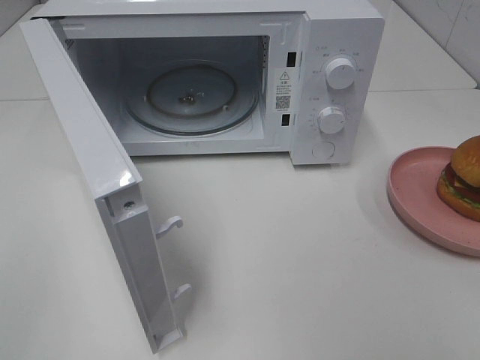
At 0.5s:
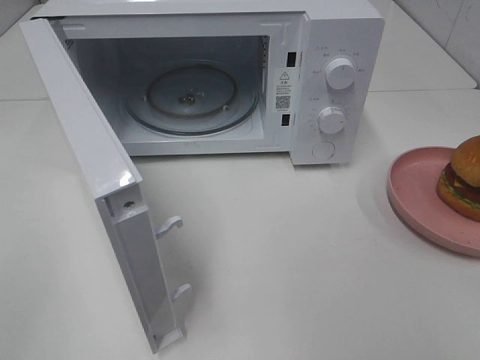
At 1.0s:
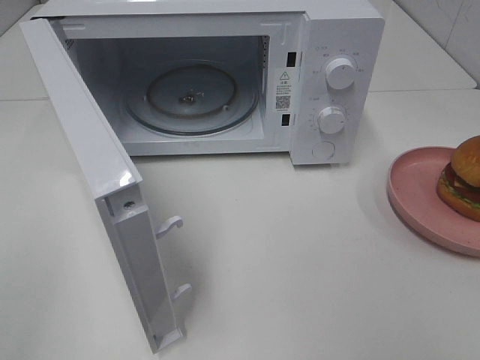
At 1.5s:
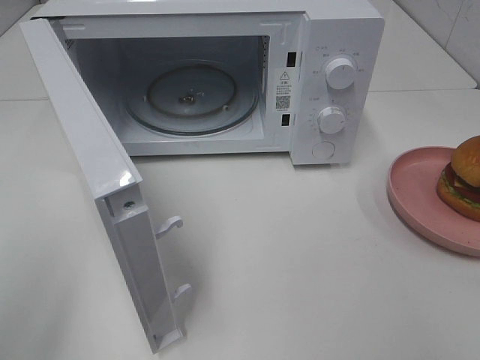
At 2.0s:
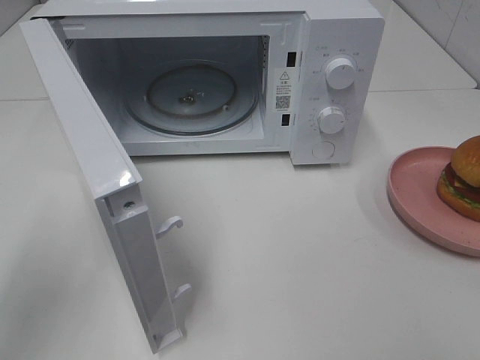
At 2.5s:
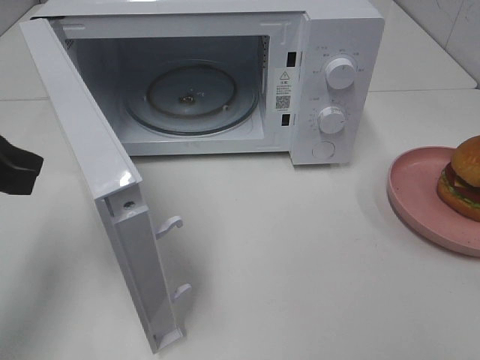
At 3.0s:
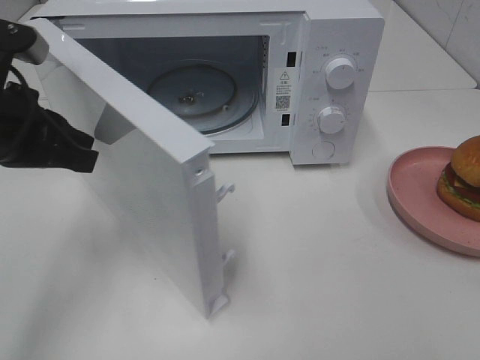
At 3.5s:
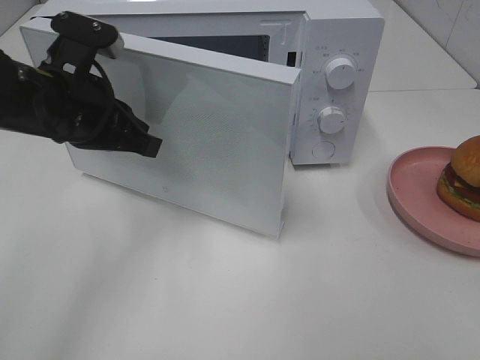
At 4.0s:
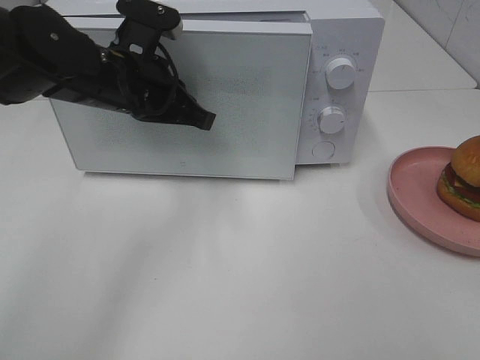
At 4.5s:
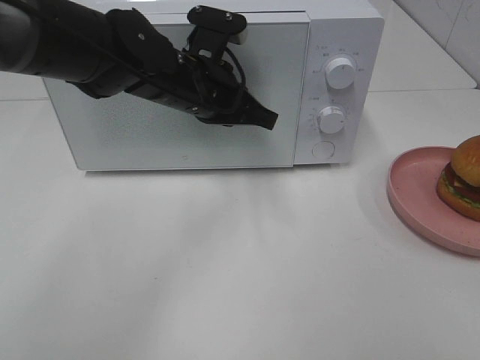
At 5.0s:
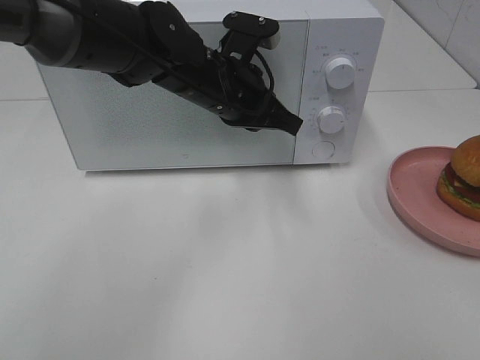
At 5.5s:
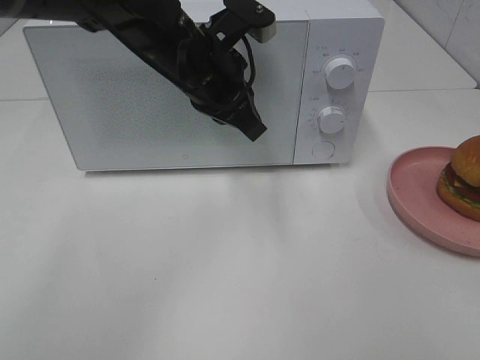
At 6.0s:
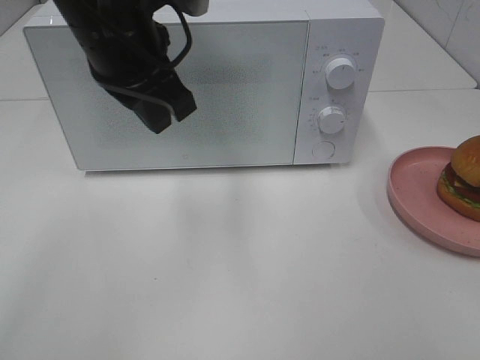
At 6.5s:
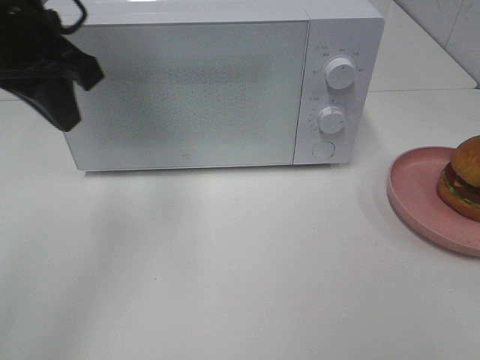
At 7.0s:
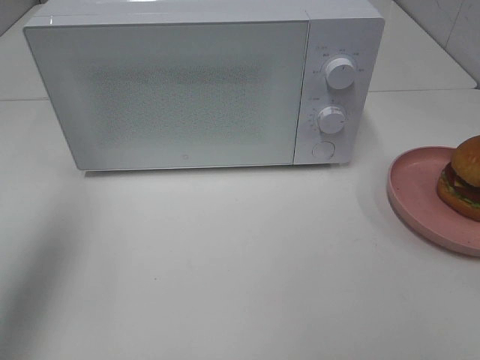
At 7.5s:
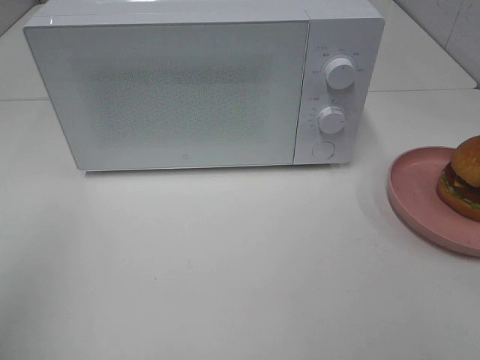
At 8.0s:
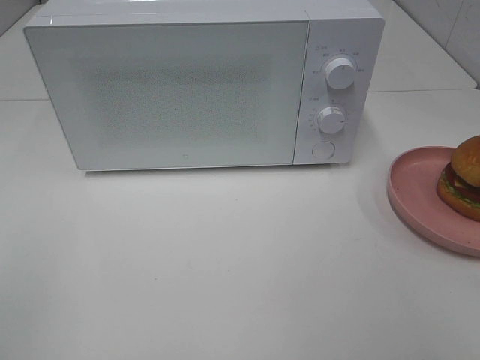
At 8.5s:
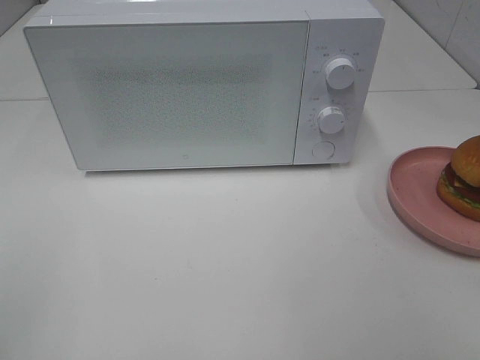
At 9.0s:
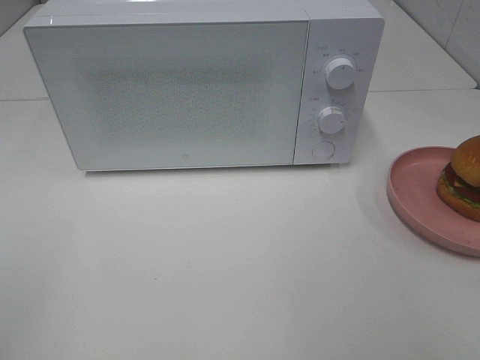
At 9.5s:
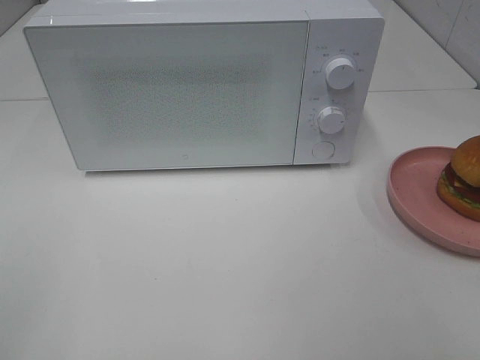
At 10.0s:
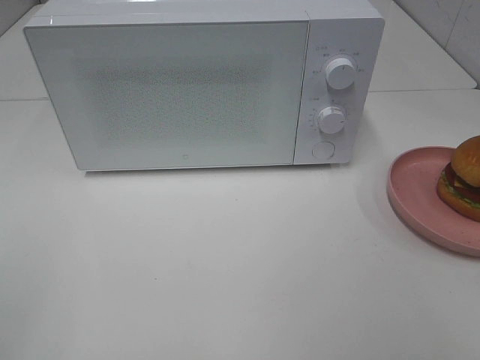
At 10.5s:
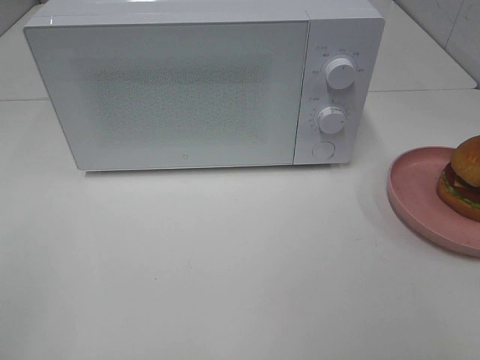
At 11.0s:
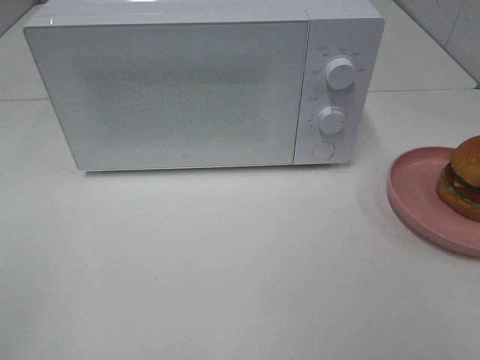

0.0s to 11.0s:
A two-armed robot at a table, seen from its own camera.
Task of the whole recording: Heat the burger.
Step, 0.0s to 4.5s: Left hand: close the microwave door.
0.0s to 2.0s: The left gripper shifts some 15 cm forward.
2.0s to 3.5s: The left gripper travels forward, to the right and downward by some 20 cm.
3.5s to 5.5s: The left gripper heads to the right and forward, covering roughly 15 cm.
5.5s to 7.5s: The left gripper moves backward and to the left, approximately 40 cm.

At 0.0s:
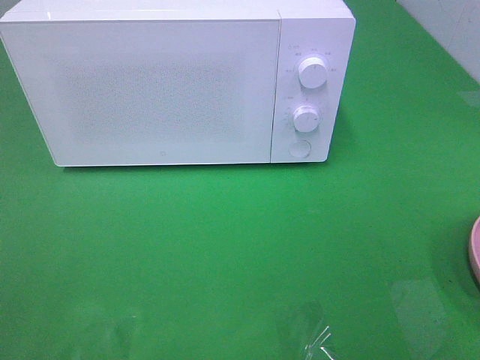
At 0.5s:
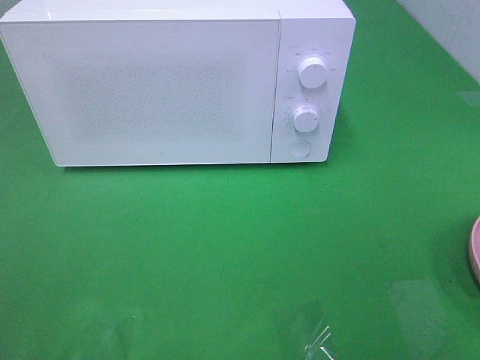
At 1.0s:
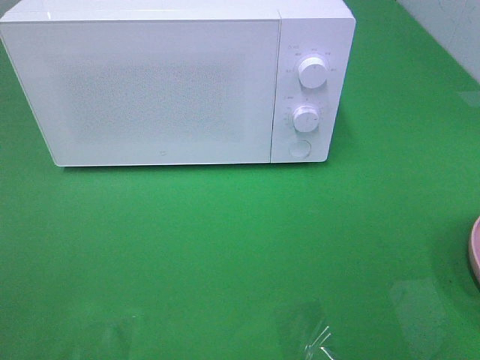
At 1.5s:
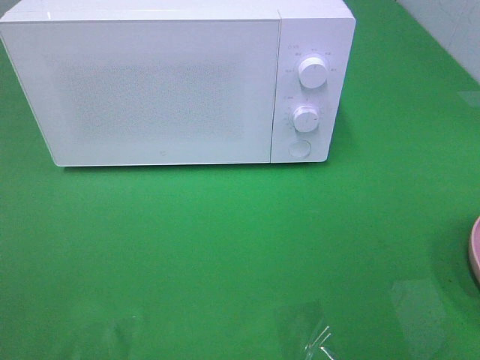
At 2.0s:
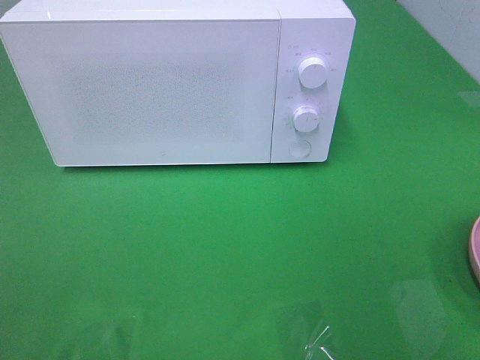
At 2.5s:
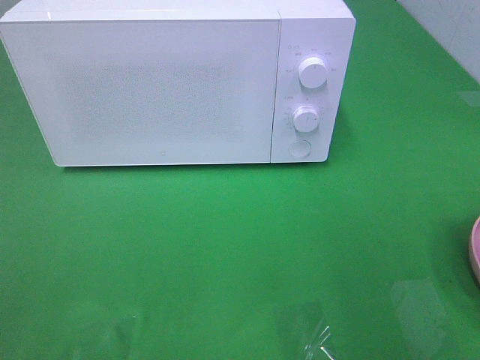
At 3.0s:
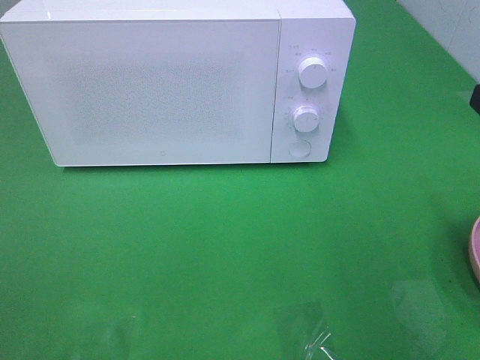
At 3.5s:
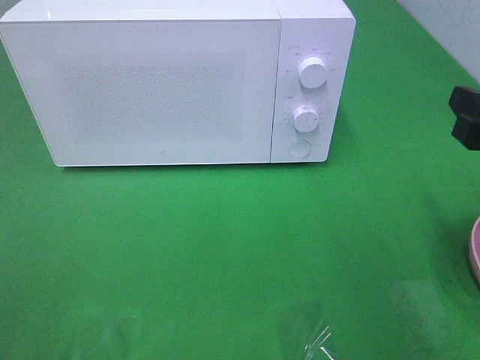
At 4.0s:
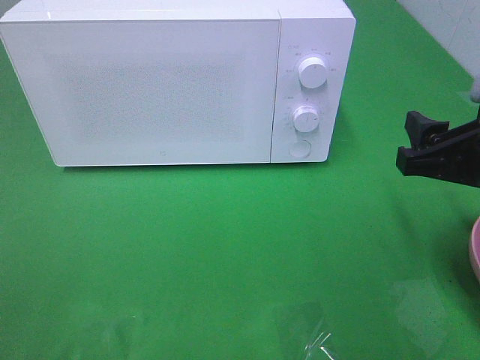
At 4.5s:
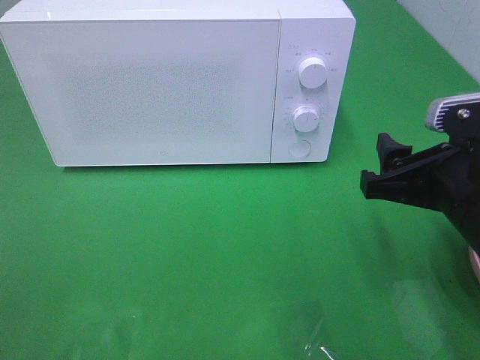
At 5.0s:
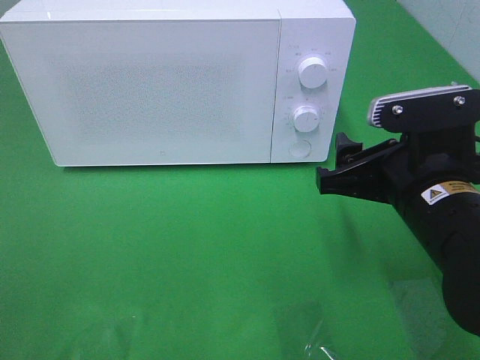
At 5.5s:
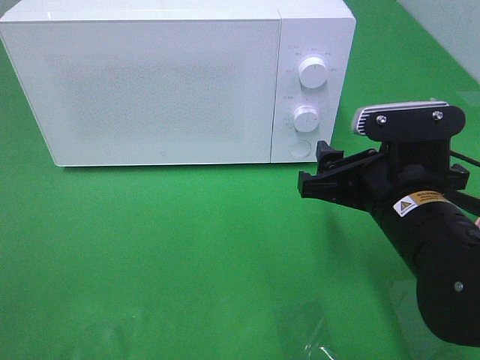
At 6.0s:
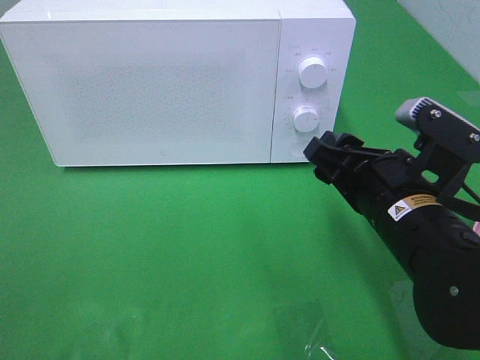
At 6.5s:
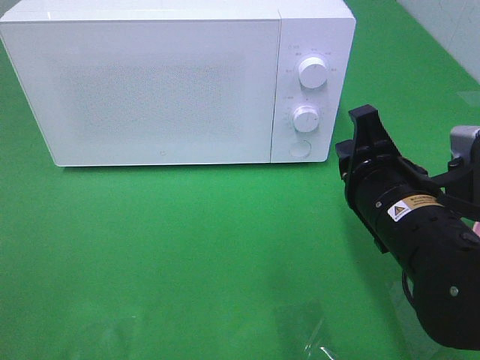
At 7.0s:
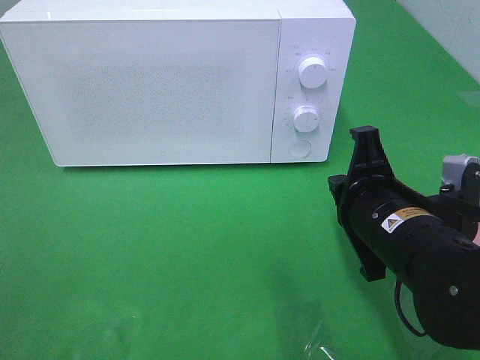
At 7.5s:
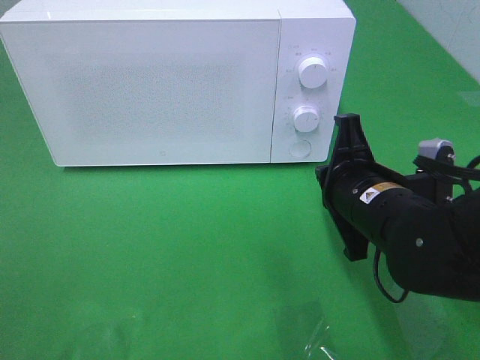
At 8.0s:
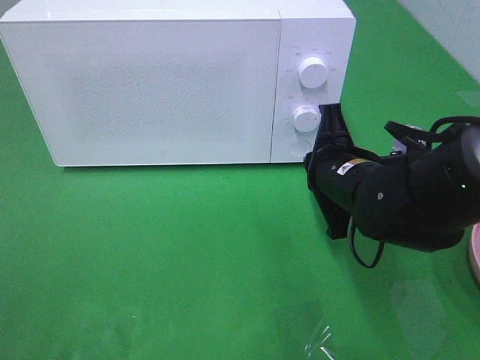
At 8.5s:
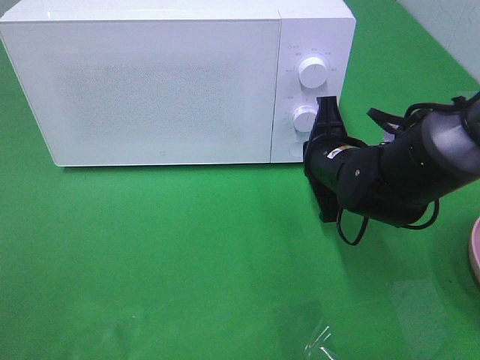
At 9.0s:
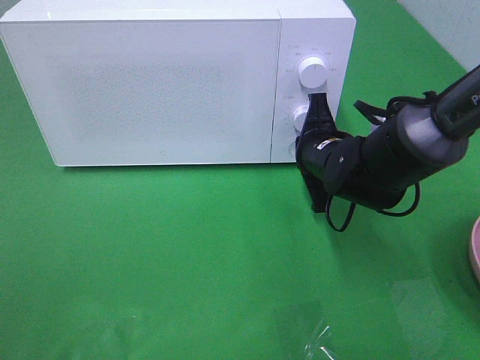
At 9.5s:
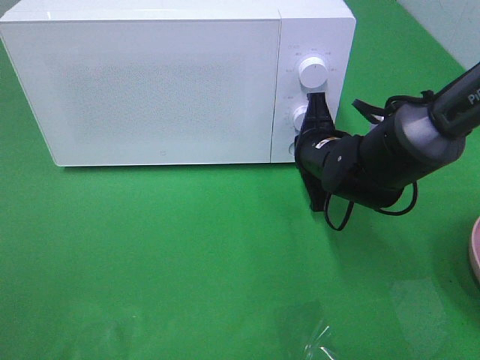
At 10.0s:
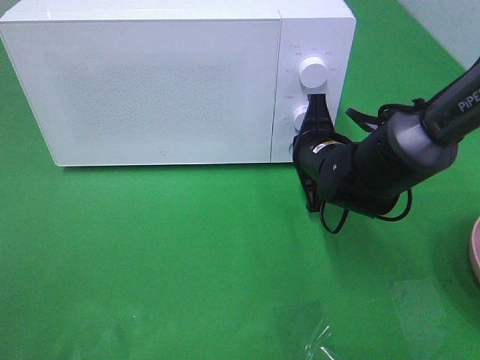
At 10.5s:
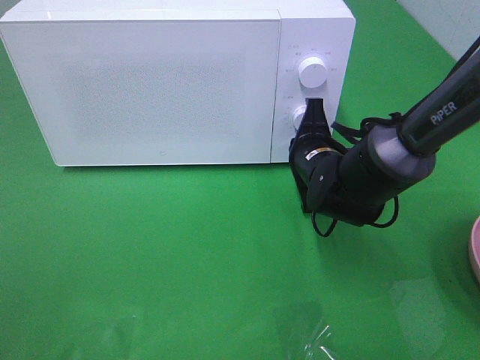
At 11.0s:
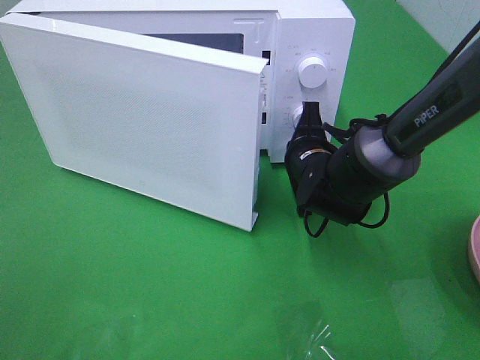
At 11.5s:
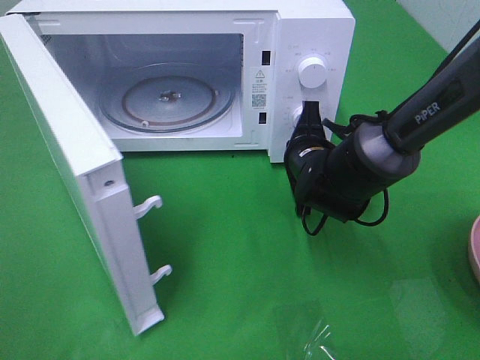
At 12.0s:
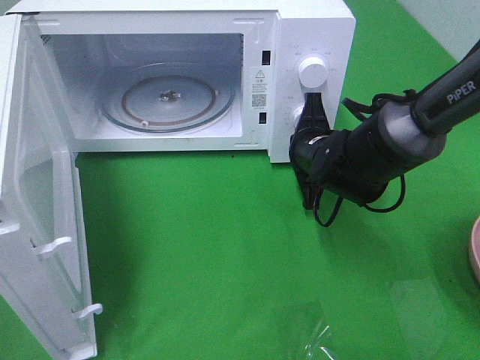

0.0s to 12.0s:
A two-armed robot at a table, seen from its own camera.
Task of the whole recording: Heat the burger.
2.0s to 4.0s: The right gripper travels downward, forward and to the left by some 15 cm.
4.0s to 6.0s: The right gripper travels to the left by about 10 cm.
6.0s to 8.0s: The right gripper goes roughly 10 cm forward, and closes.
8.0s to 10.0s: The right gripper heads forward, covering some 5 cm.

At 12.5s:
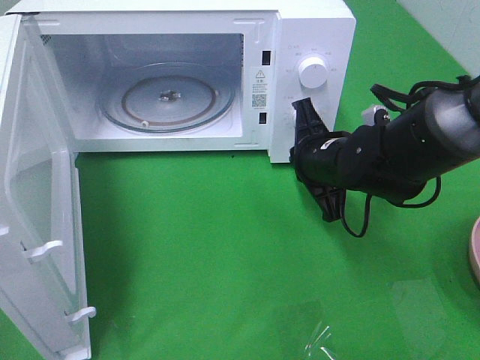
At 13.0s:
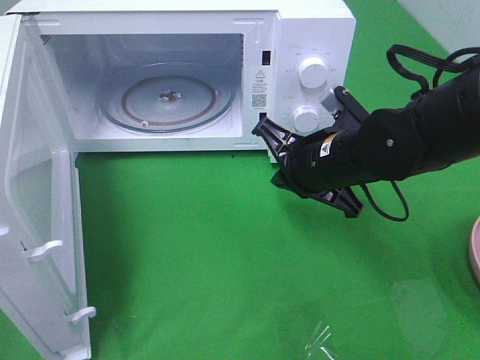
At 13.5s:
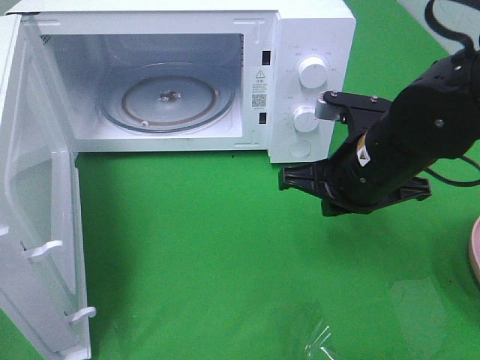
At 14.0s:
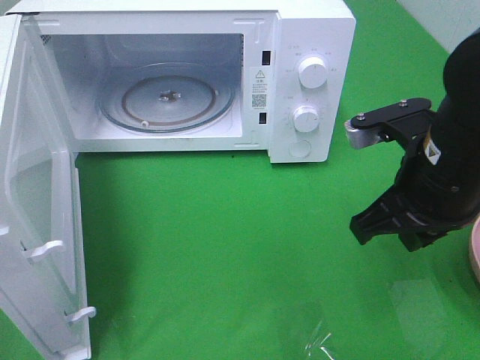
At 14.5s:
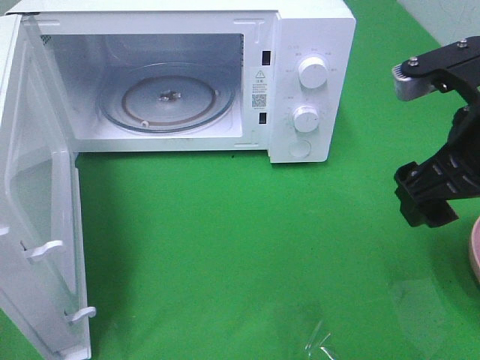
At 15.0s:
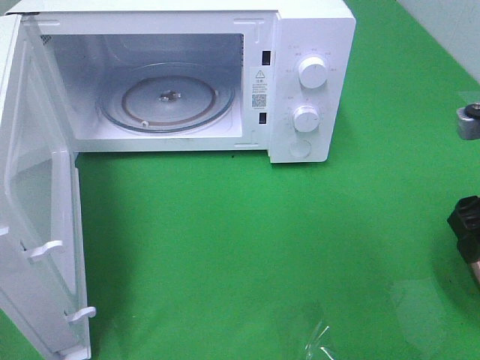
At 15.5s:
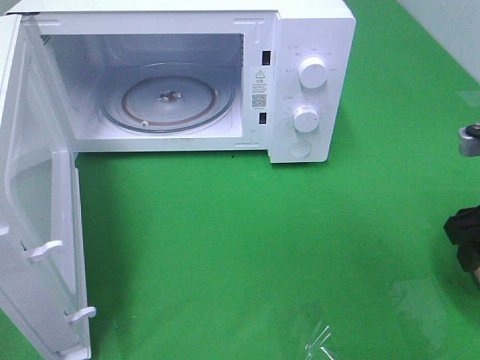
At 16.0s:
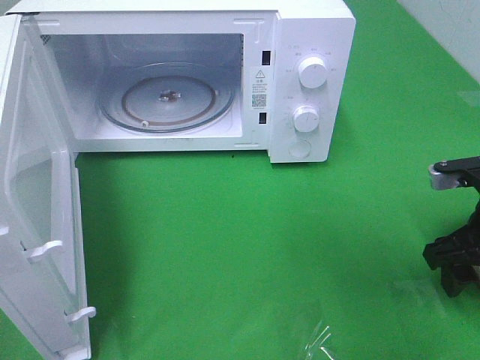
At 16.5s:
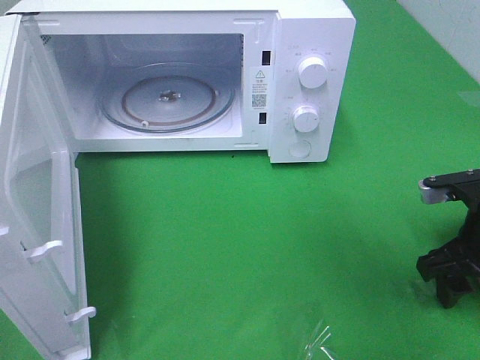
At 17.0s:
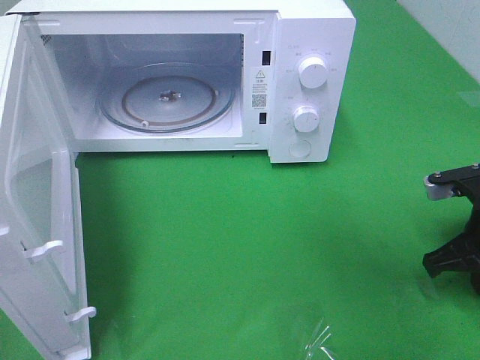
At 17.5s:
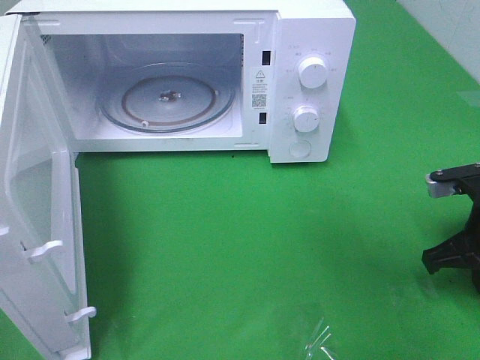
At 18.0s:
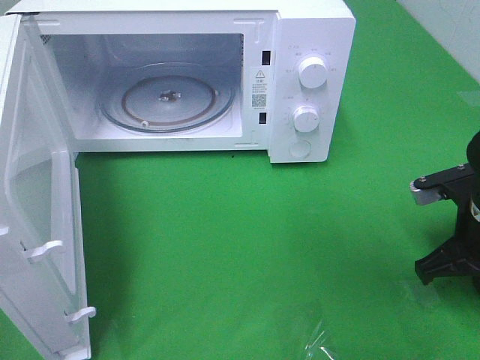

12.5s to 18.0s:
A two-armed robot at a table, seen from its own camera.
Task of the whole recording: Heat the burger.
Step, 13.0s to 17.0s: Right hand: grab the plate with the hamburger.
12.5s to 14.5s: The right gripper goes some 20 cm upward, backward and to the right, and opens up.
14.5s to 16.0s: The right gripper travels downward and to the right by some 15 cm.
16.0s to 18.0s: The right gripper closes up.
